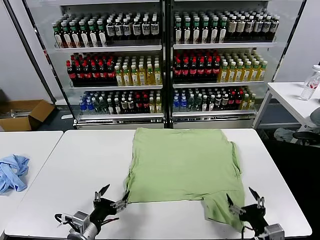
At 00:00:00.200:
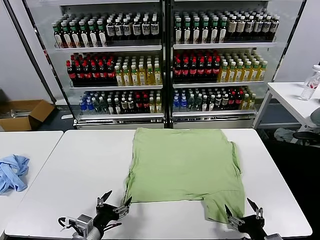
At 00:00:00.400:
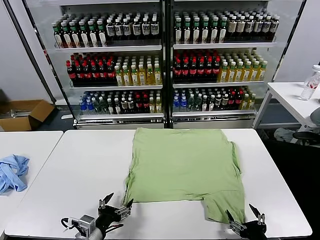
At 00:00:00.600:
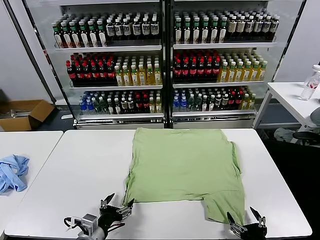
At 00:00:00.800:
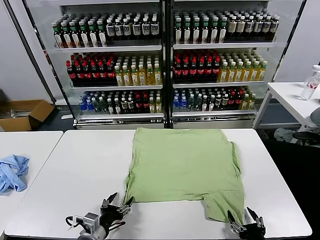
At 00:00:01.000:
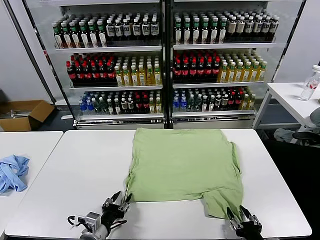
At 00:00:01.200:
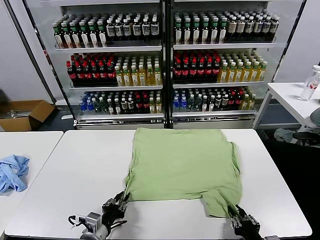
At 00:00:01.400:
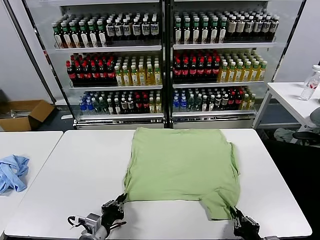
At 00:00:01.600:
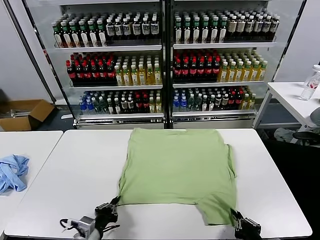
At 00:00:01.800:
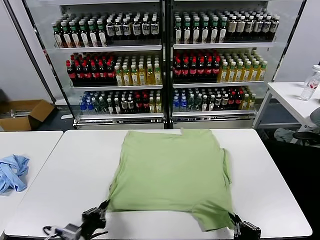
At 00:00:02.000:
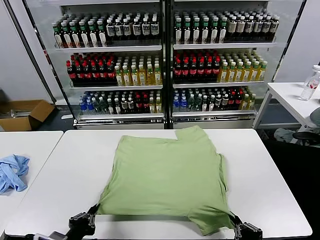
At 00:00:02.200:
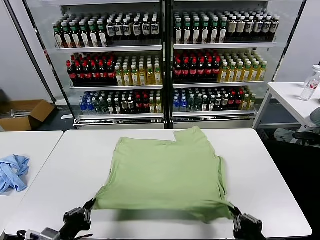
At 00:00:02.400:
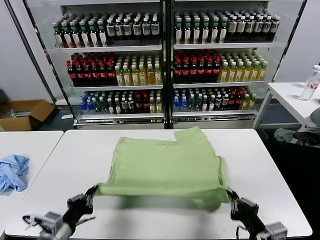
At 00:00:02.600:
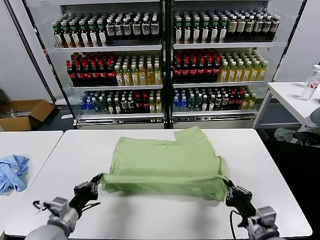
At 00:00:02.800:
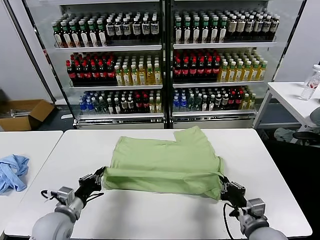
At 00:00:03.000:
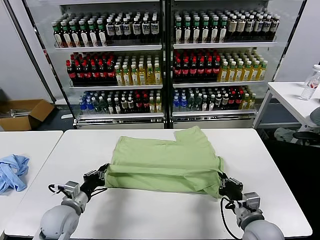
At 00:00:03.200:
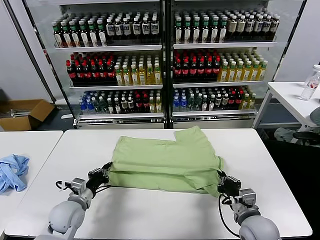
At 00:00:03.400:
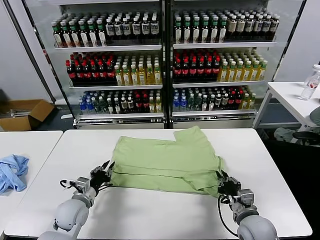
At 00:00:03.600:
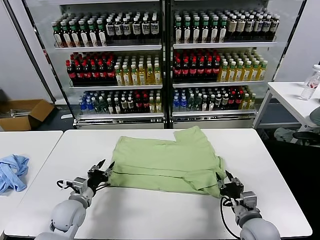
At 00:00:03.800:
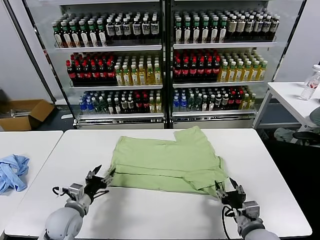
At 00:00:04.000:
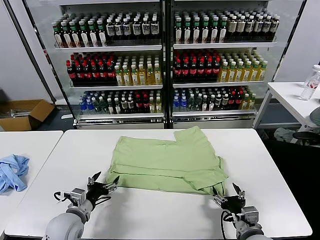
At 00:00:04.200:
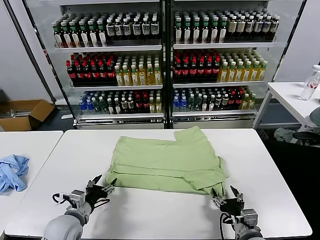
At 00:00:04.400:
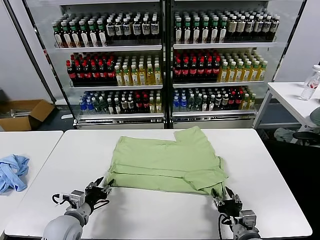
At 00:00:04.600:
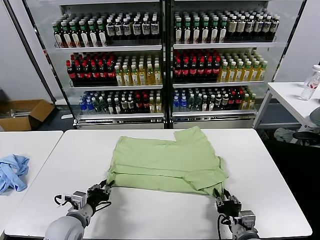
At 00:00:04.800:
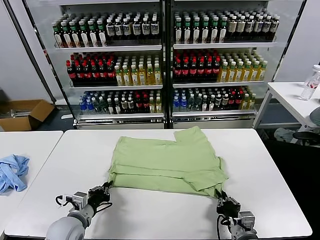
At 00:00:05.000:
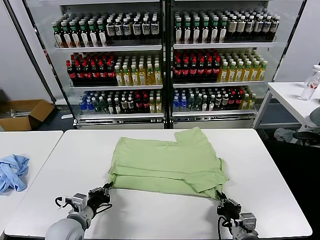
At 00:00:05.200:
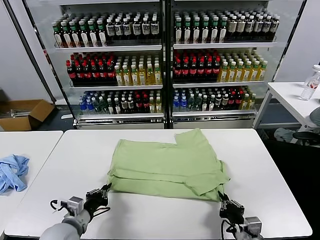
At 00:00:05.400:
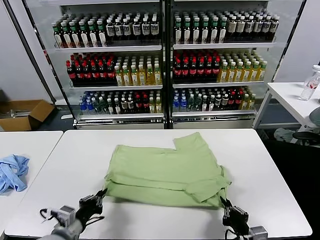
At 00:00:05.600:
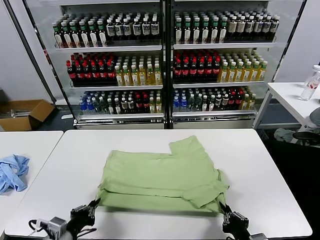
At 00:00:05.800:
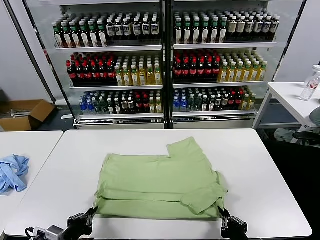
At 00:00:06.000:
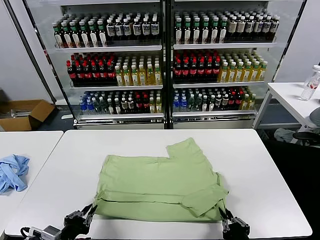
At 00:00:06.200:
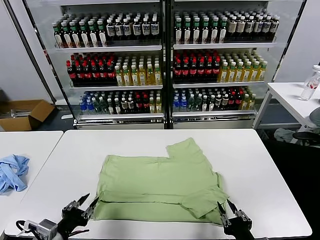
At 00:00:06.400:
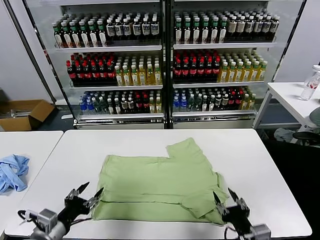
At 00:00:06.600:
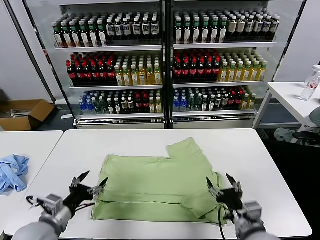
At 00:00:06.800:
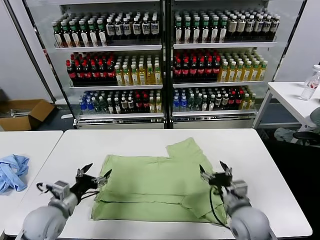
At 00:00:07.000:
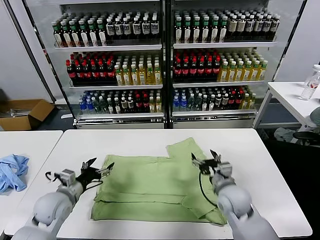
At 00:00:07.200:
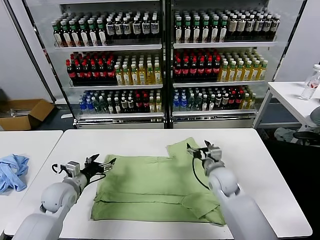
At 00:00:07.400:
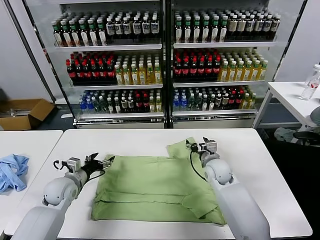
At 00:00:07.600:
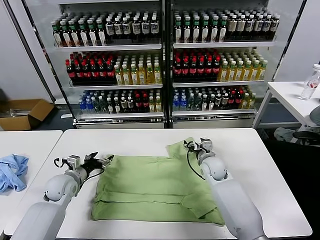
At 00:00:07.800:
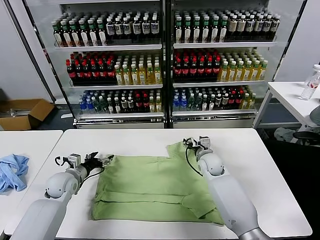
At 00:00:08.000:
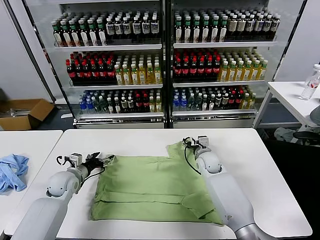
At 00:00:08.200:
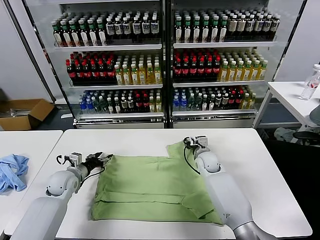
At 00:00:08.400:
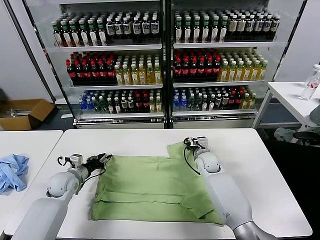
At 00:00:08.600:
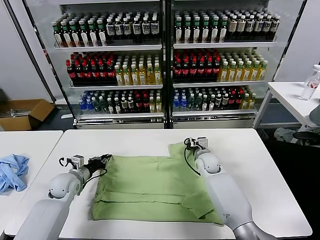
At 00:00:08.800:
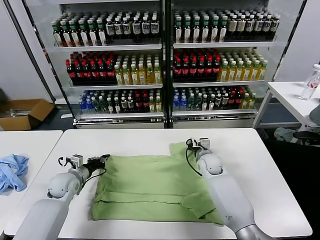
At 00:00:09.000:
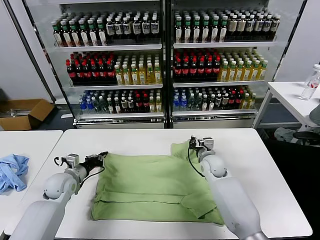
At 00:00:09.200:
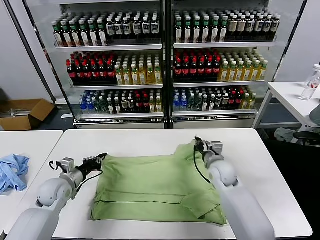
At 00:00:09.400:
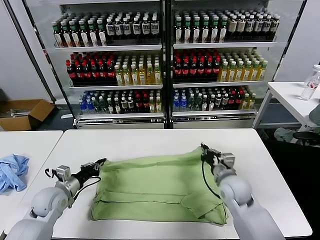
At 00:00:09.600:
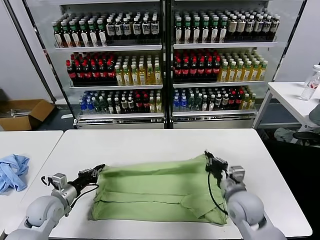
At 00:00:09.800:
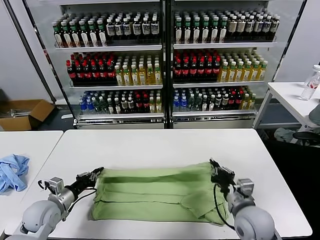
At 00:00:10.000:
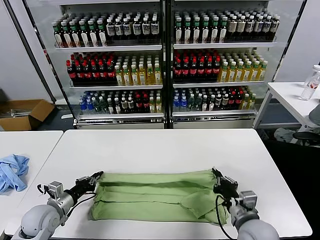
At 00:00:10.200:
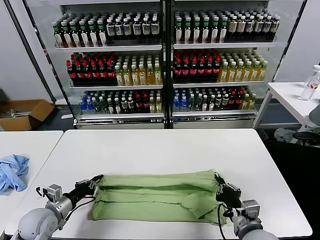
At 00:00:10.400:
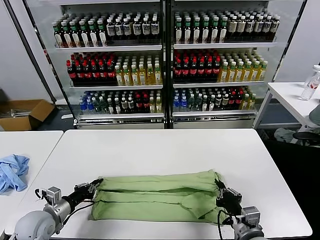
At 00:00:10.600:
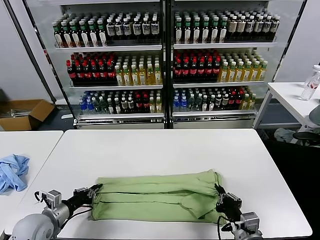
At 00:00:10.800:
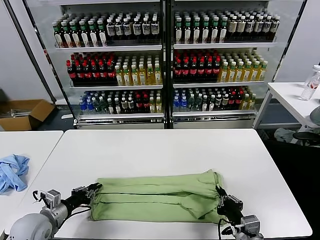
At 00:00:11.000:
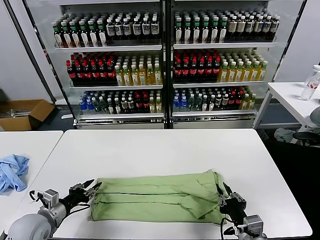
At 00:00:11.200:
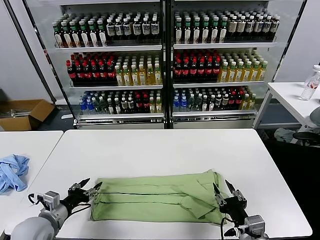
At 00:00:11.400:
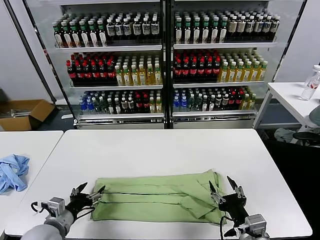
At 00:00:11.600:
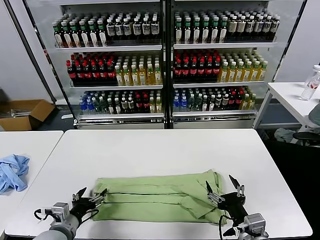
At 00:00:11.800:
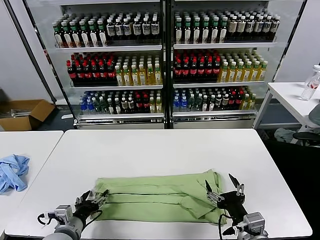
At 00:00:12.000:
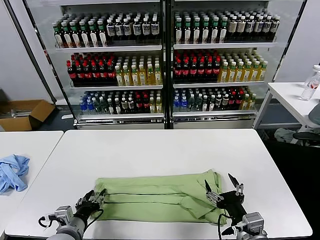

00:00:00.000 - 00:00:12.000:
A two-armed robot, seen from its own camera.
Task of the whole recording: fold and organize the clothes.
Step, 00:00:00.000 - 00:00:01.400: use both grippers simultaneously to clamp the lower edge of the clothing fabric.
Step, 00:00:01.600 - 00:00:03.400: use both grippers to drag the lower edge of the fabric forward and fold it over the upper edge.
Step, 00:00:03.600 - 00:00:06.000: Drag the clothes downward with both gripper.
Step, 00:00:06.200 - 00:00:08.600: use both grippers simultaneously to clamp the upper edge of the clothing fabric.
Step, 00:00:08.800 - 00:00:10.800: use both grippers to drag the upper edge of the fabric backward and fold it over the lower edge.
00:00:01.600 - 00:00:03.000: The left gripper goes roughly 15 cm forward and to the left, while the right gripper is displaced forward by some 15 cm.
00:00:03.000 - 00:00:04.400: The right gripper shifts by approximately 5 cm, and opens up. The left gripper opens its fingers.
00:00:04.400 - 00:00:06.000: The left gripper travels backward and upward by roughly 15 cm; the right gripper moves backward, roughly 10 cm.
00:00:06.000 - 00:00:07.600: The grippers both shift forward by roughly 30 cm. The left gripper opens its fingers, while the right gripper opens its fingers.
00:00:07.600 - 00:00:09.000: The right gripper closes its fingers. Meanwhile the left gripper closes its fingers.
00:00:09.000 - 00:00:10.400: The left gripper goes about 15 cm backward, while the right gripper heads backward, covering about 30 cm.
00:00:10.400 - 00:00:12.000: The left gripper is displaced to the right and backward by some 10 cm, and opens its fingers. Meanwhile the right gripper opens up.

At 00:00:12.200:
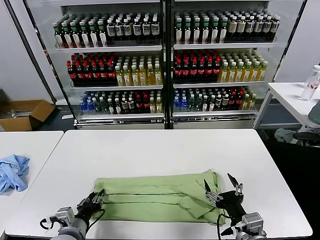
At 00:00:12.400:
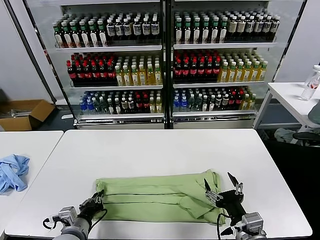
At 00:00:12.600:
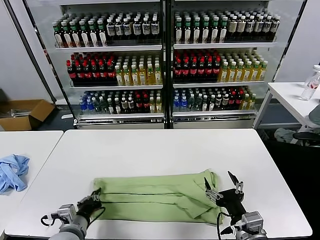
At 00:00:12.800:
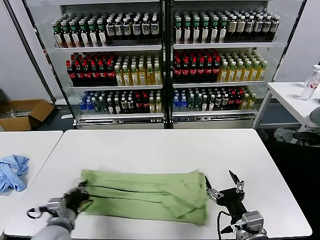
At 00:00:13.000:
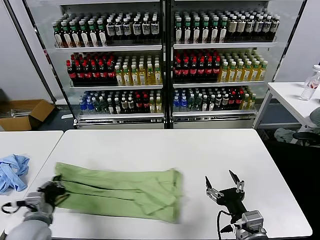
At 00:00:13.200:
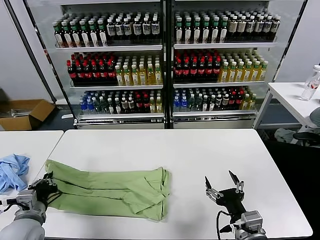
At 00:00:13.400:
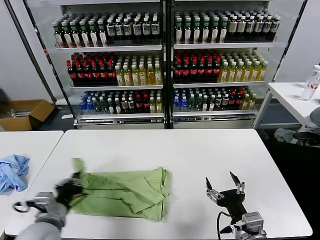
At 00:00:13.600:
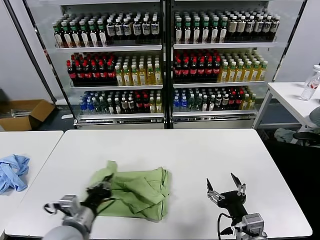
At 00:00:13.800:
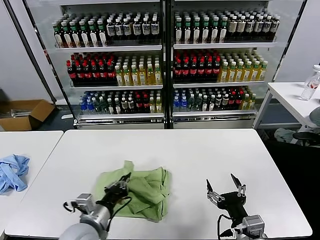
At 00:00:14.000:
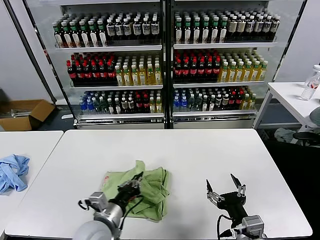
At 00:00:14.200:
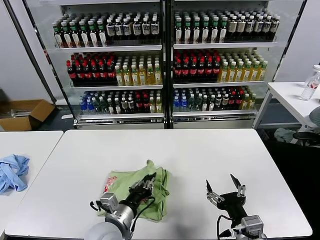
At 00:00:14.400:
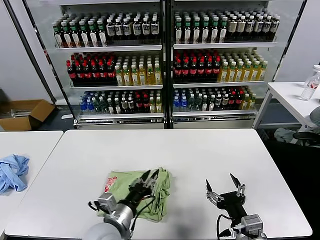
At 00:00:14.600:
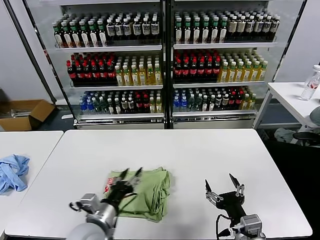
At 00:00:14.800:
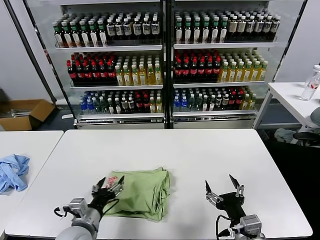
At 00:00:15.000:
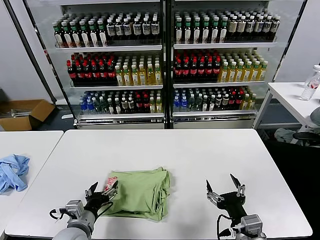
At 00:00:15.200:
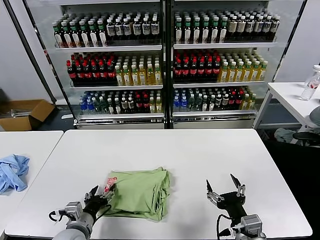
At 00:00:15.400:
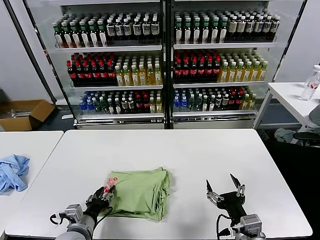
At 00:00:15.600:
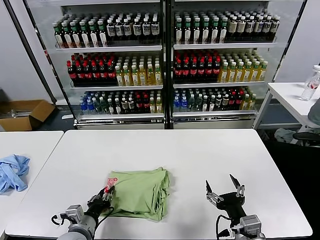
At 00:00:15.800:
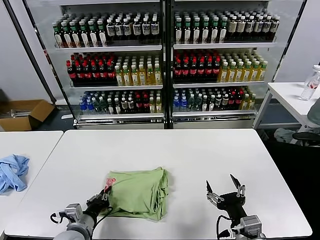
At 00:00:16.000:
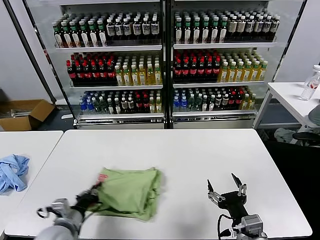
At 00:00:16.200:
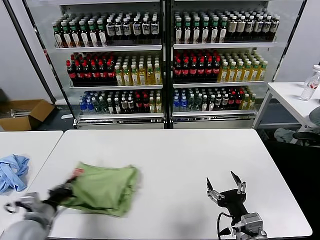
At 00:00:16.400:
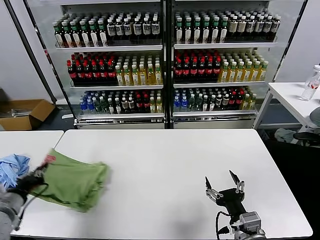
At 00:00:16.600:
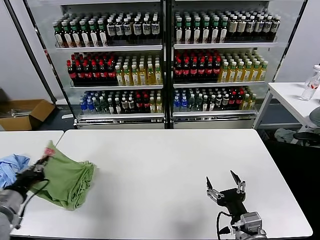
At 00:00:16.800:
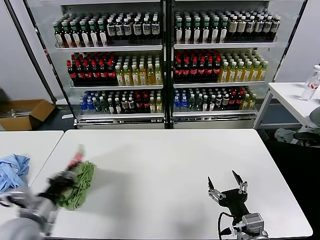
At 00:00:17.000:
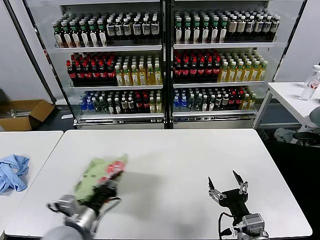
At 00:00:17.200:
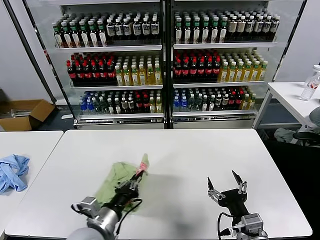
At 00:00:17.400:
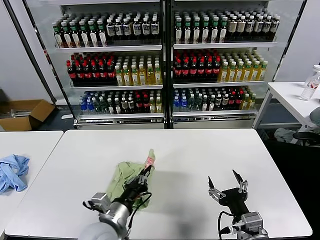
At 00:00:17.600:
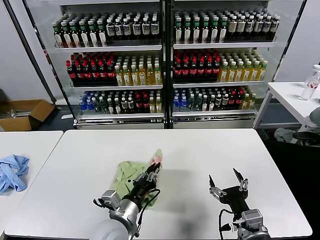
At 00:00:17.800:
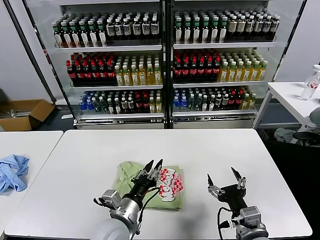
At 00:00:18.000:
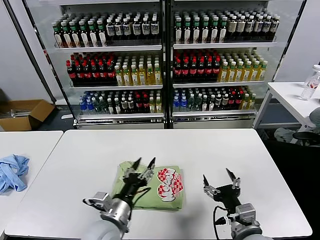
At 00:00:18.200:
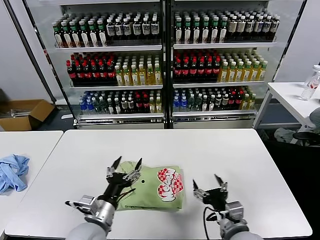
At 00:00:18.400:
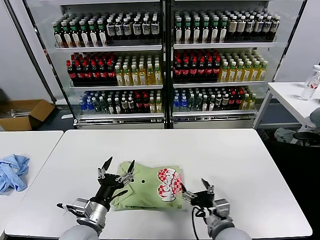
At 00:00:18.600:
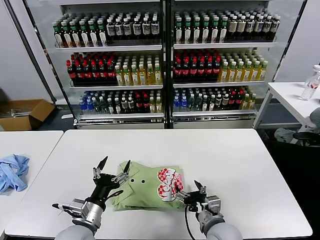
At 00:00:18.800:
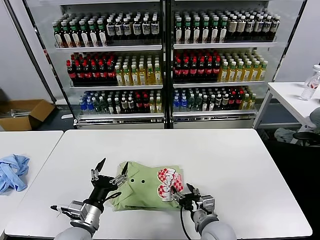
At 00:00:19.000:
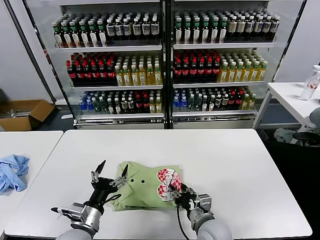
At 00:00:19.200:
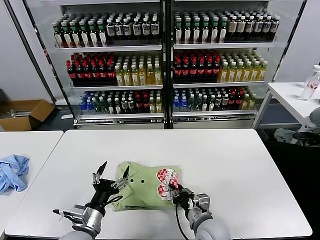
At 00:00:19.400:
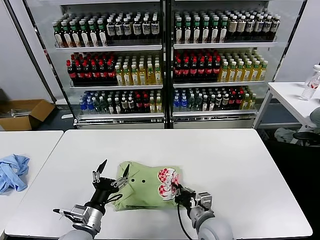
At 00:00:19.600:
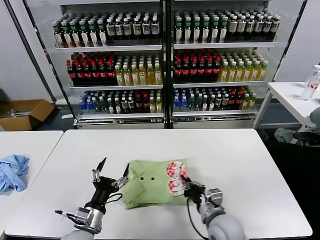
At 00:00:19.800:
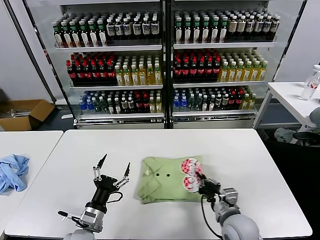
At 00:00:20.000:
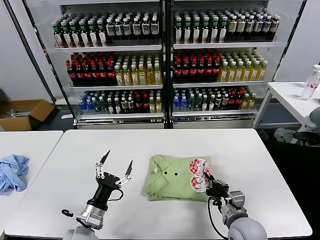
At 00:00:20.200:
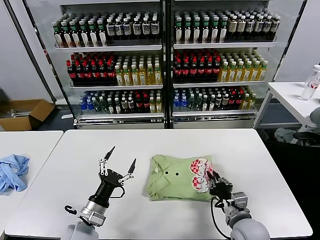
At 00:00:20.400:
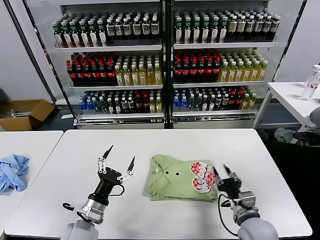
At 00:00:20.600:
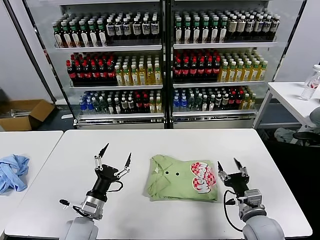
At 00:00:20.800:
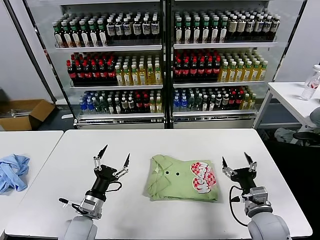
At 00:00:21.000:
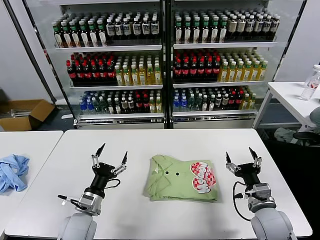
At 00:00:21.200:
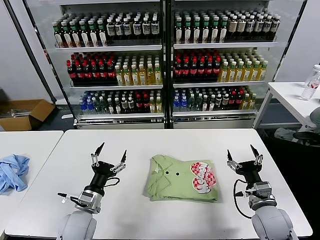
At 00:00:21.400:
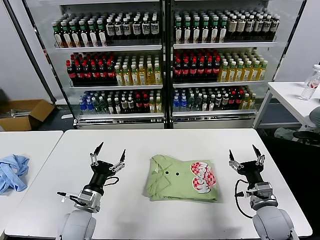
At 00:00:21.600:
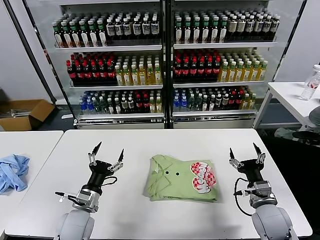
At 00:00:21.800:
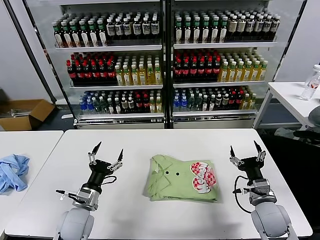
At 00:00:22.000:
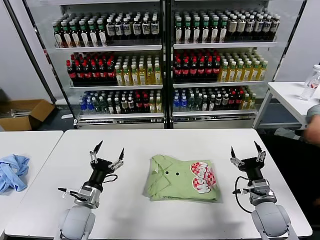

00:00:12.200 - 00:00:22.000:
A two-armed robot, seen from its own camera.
Task of the whole recording: fold and organize the clothes.
Step, 00:00:12.600 - 00:00:14.200: use the left gripper to drag the left edge of the fabric to the left and folds it over the right edge.
Step, 00:00:14.600 - 00:00:17.800: Flip the folded clothes over with left gripper.
Step, 00:00:18.000 - 00:00:20.200: Drag the clothes to the center of the table.
00:00:12.200 - 00:00:13.600: The left gripper travels upward by some 10 cm, moves some 10 cm to the left and comes back, and closes up.
00:00:13.600 - 00:00:15.000: The left gripper travels downward by roughly 5 cm, reaches approximately 10 cm to the right, then returns, and opens.
00:00:15.000 - 00:00:16.400: The left gripper goes approximately 20 cm to the left and upward, and closes its fingers.
00:00:16.400 - 00:00:17.800: The left gripper travels to the right by some 30 cm, and opens up.
00:00:17.800 - 00:00:19.200: The right gripper is displaced to the left, downward and forward by some 15 cm, and closes its fingers; the left gripper moves to the left, some 10 cm, and opens.
00:00:19.200 - 00:00:20.600: The right gripper moves to the right, some 15 cm, and closes and opens again. The left gripper shifts by approximately 5 cm.
00:00:20.600 - 00:00:22.000: The right gripper ends up approximately 5 cm from where it was.
